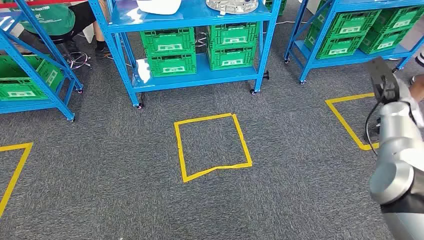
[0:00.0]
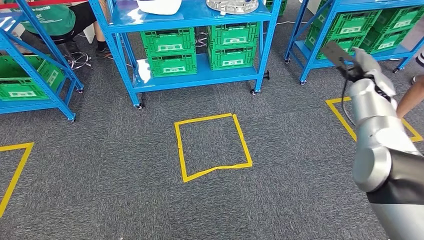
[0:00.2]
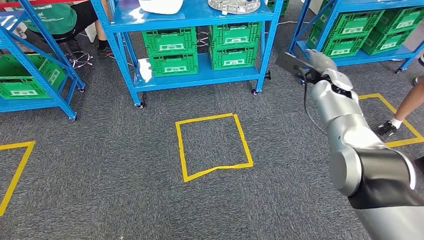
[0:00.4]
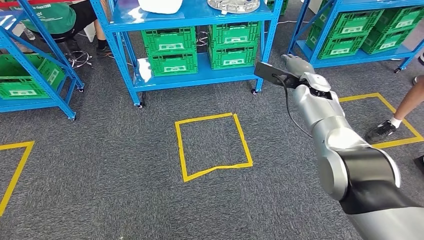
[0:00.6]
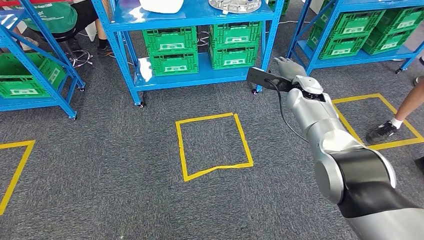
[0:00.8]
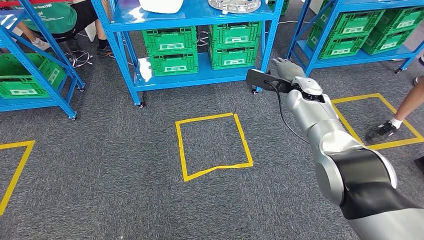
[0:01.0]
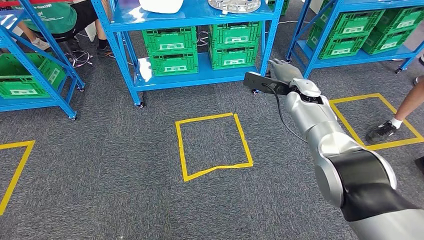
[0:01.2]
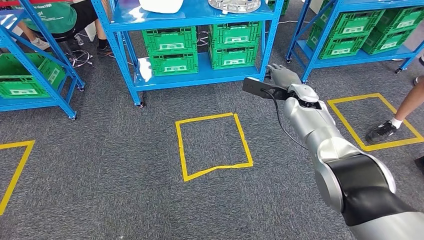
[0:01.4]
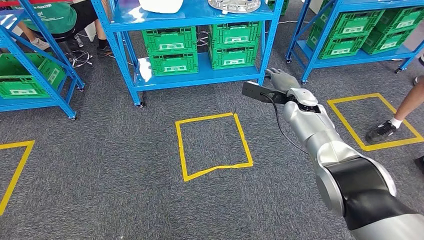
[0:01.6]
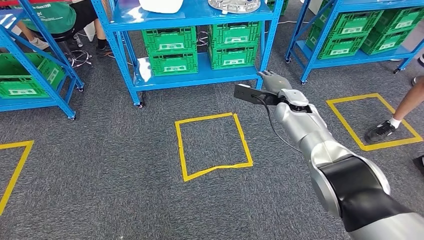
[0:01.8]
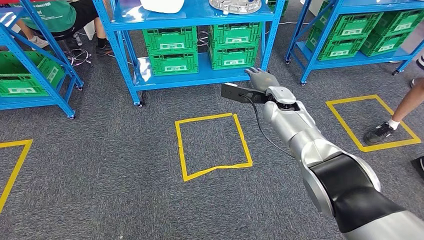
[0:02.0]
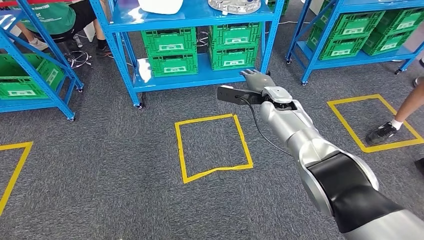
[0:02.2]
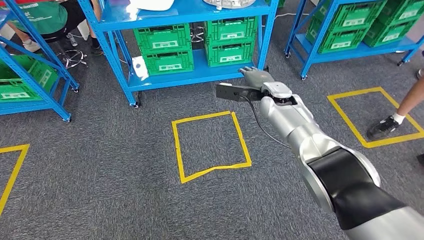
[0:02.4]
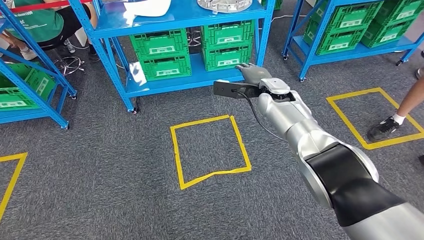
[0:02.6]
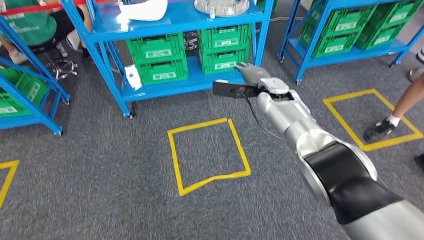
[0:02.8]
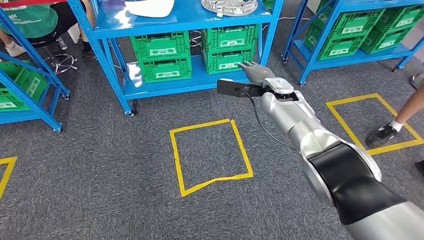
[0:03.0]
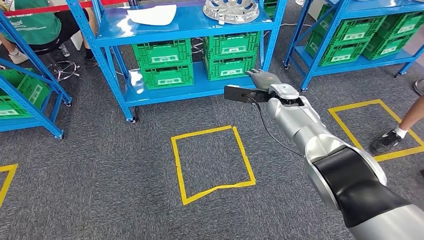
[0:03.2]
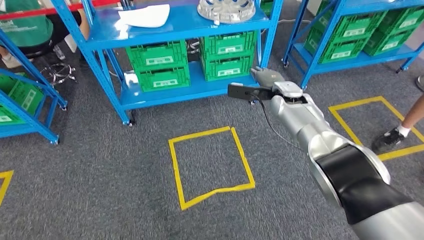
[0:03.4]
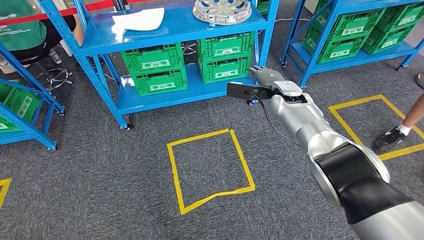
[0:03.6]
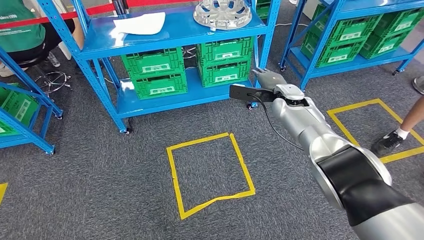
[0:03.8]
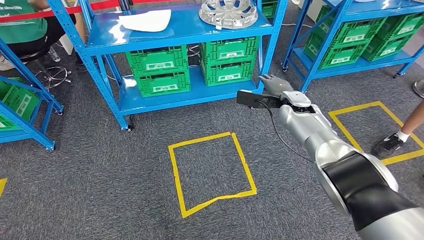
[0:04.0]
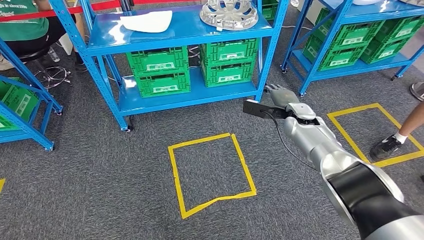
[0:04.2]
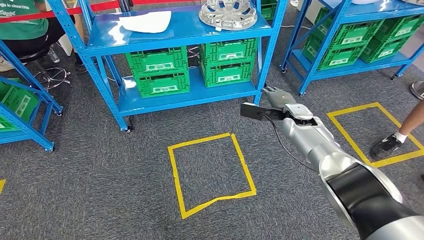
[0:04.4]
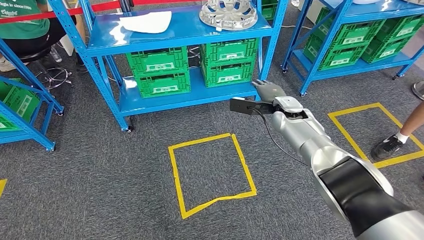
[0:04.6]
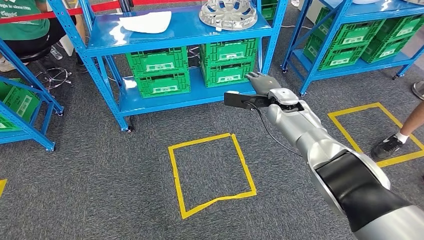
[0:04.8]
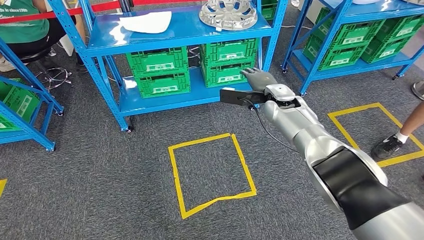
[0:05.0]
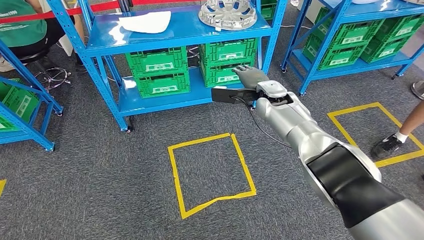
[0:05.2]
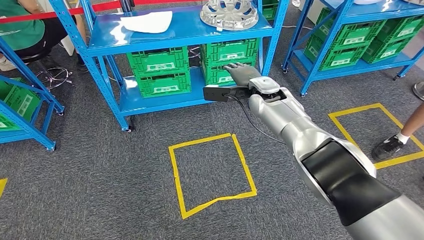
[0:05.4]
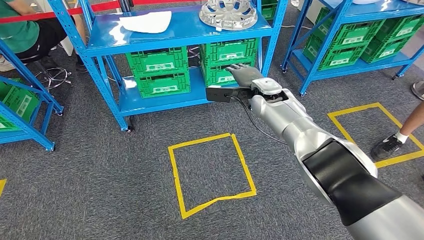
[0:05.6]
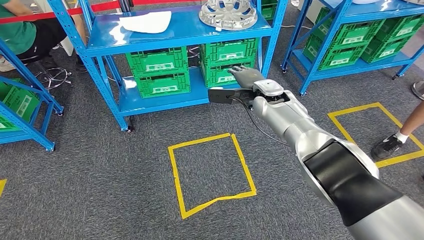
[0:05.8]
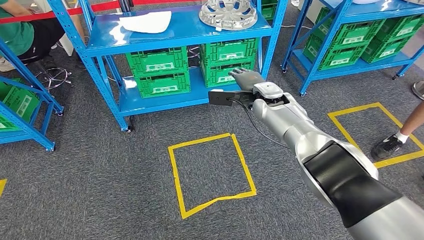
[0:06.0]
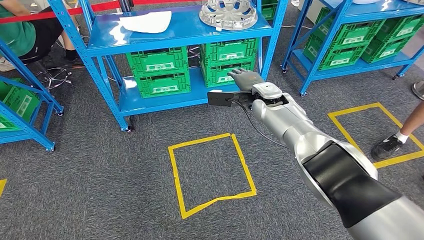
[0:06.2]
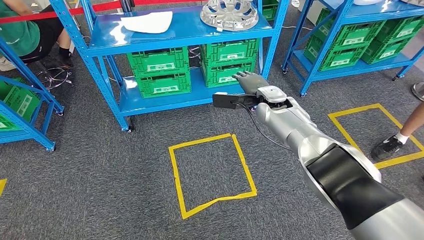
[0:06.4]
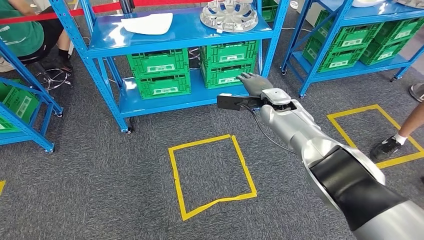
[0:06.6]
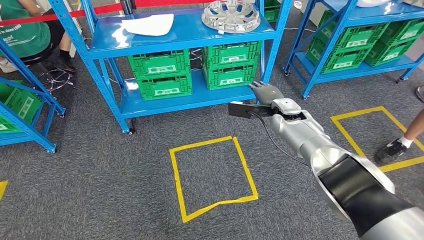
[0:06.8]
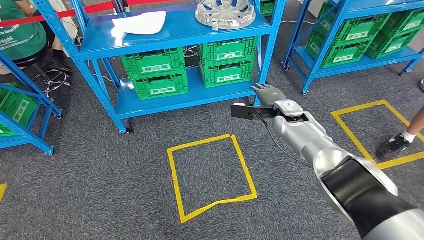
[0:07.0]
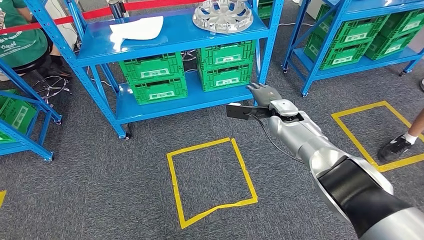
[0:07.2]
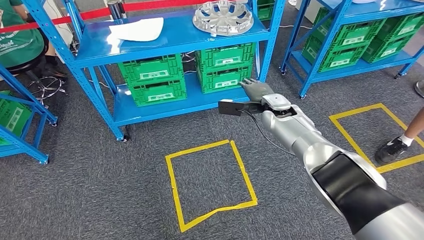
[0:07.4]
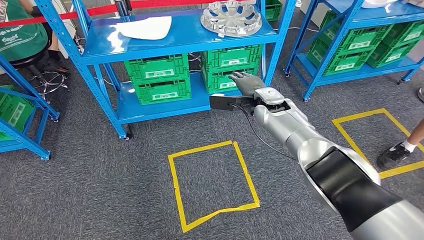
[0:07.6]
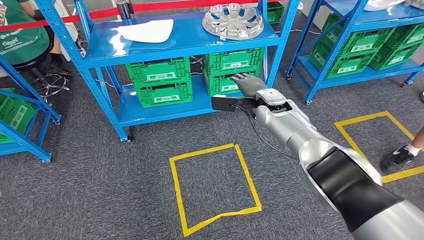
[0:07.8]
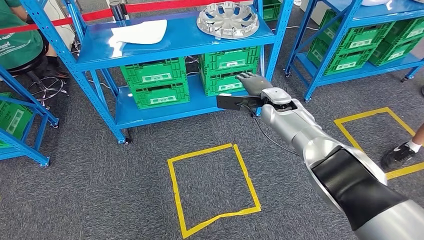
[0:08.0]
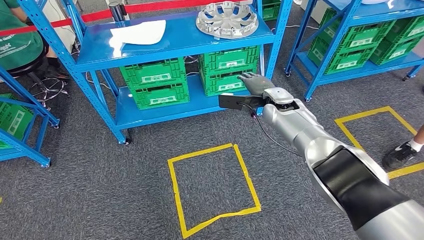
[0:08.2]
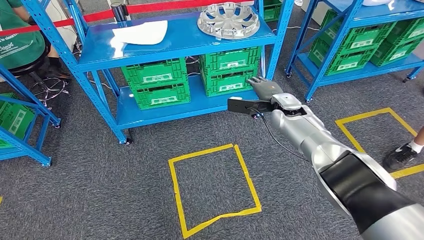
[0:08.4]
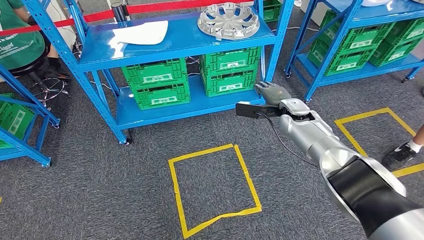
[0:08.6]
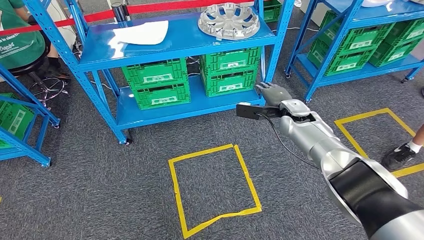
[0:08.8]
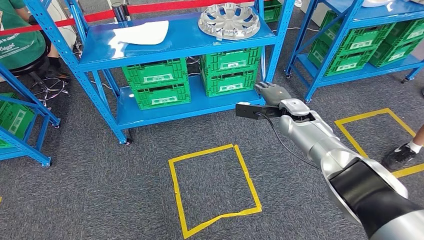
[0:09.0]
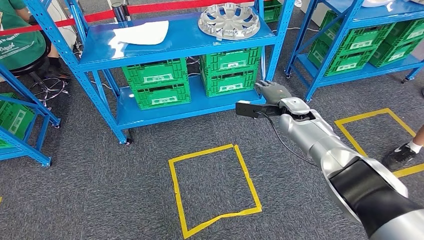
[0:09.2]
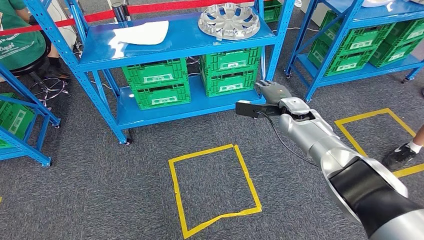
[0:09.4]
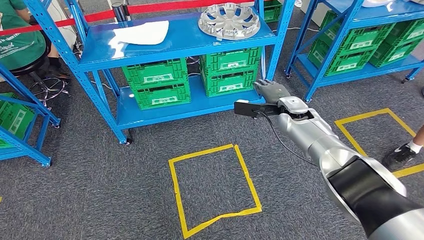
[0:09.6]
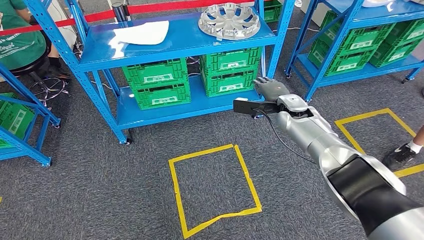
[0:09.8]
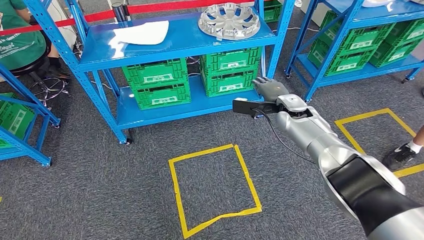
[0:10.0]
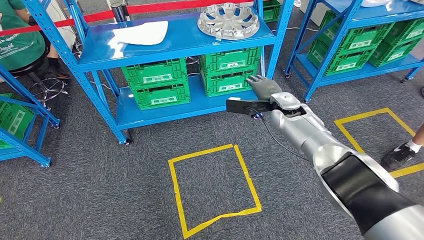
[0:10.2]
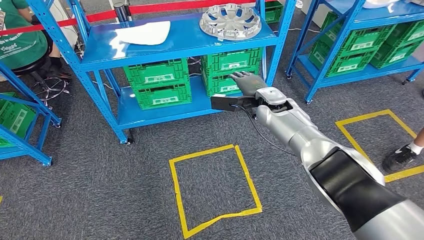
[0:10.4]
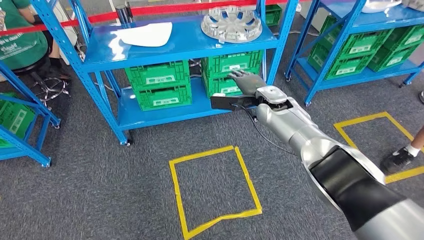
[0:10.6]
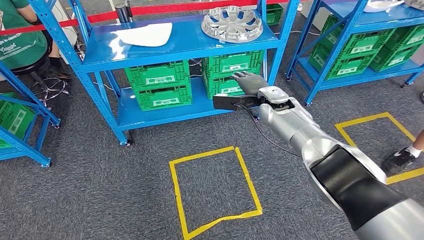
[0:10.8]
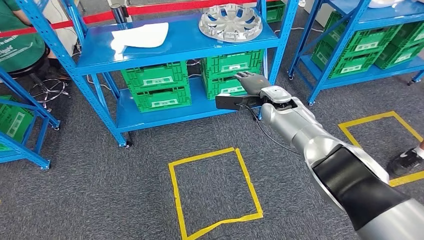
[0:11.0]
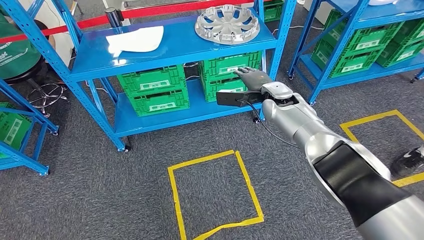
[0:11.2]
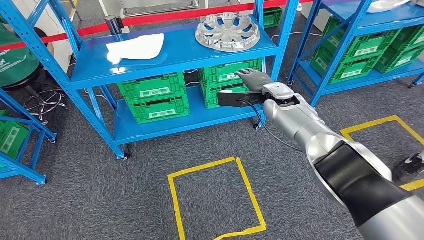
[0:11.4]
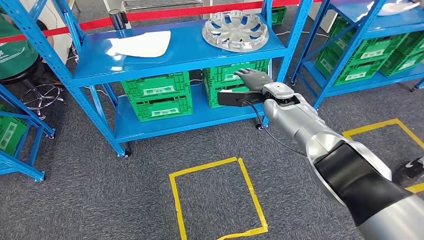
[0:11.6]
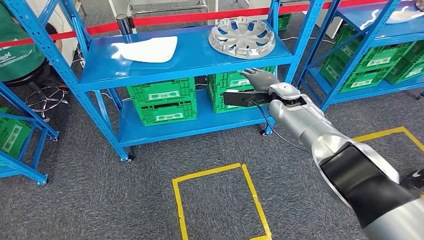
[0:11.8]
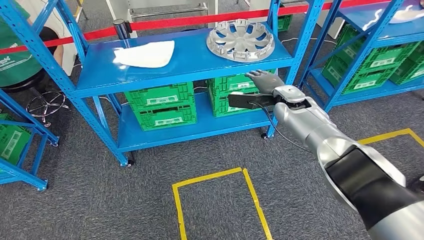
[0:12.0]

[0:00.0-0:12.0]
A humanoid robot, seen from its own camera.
0:04.4 to 0:06.0: The right hand shifts some 10 cm to the left, upward and forward.
0:09.0 to 0:10.4: The right hand moves to the left, some 5 cm.

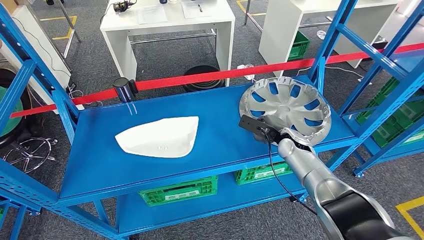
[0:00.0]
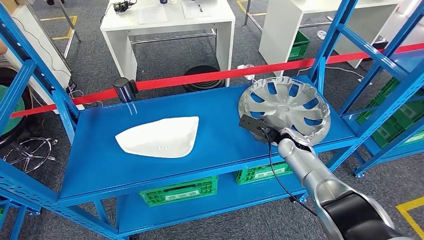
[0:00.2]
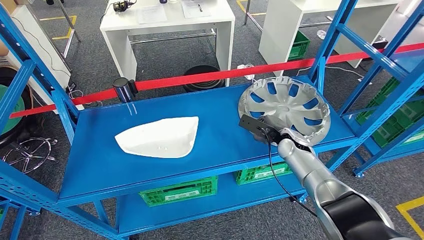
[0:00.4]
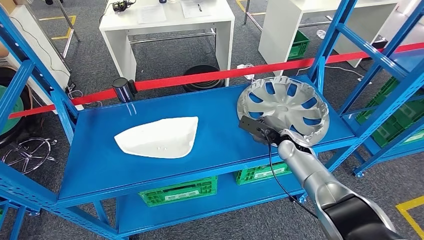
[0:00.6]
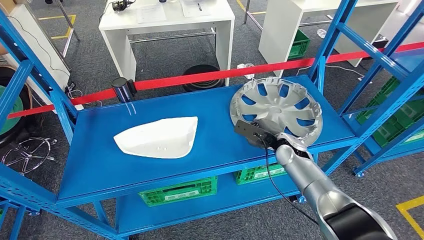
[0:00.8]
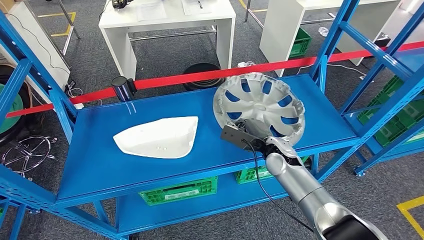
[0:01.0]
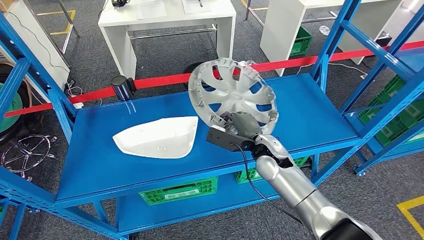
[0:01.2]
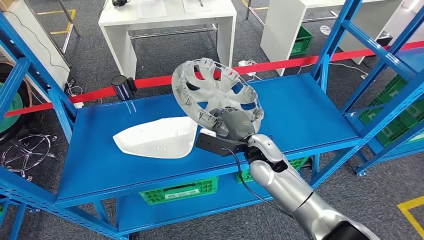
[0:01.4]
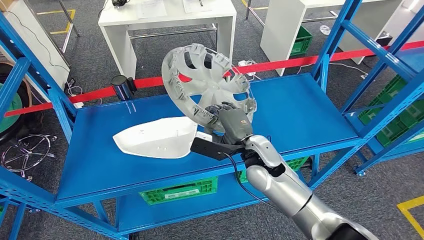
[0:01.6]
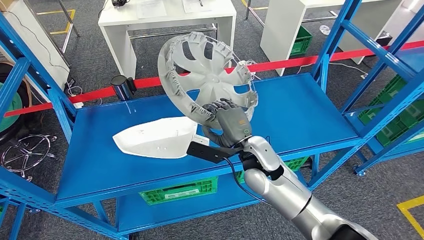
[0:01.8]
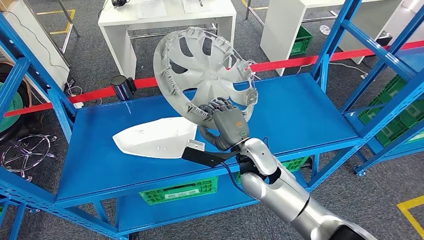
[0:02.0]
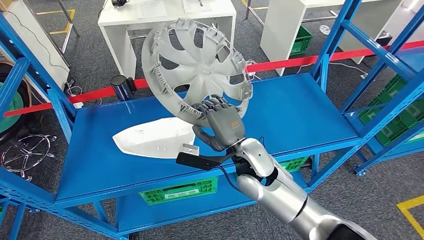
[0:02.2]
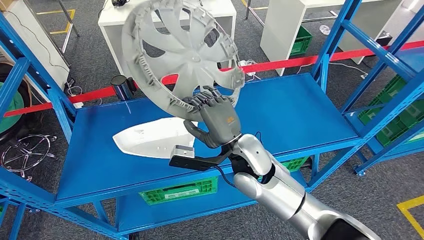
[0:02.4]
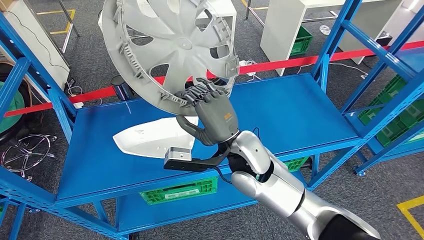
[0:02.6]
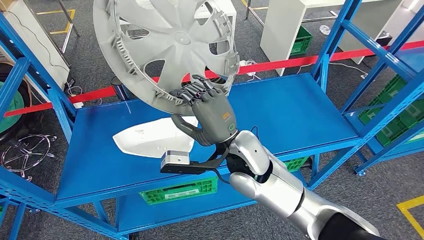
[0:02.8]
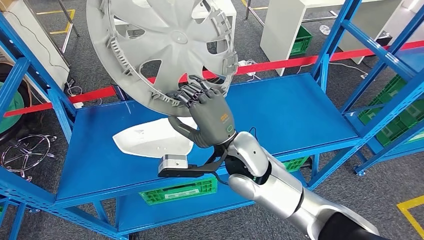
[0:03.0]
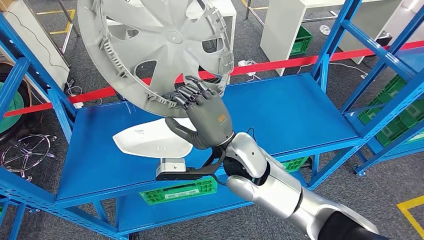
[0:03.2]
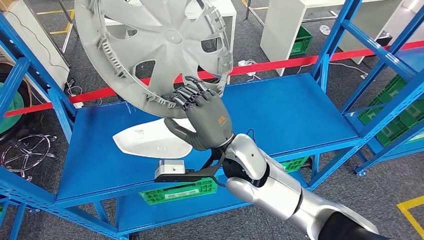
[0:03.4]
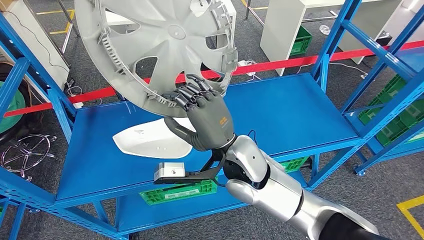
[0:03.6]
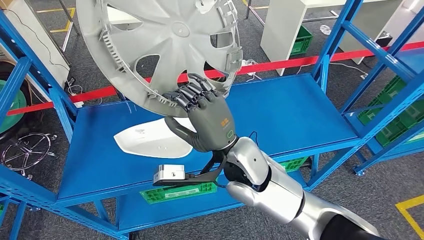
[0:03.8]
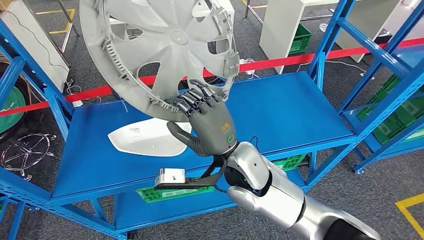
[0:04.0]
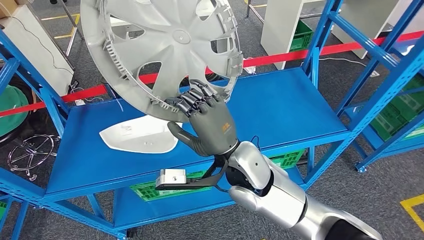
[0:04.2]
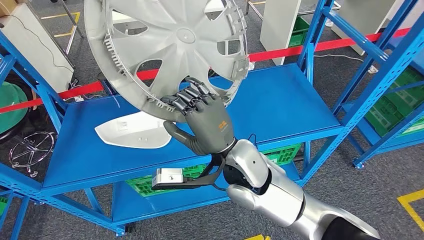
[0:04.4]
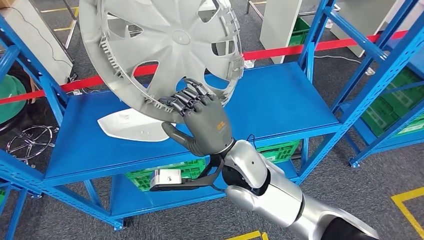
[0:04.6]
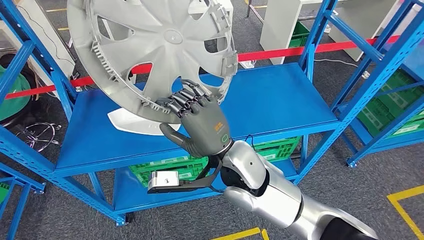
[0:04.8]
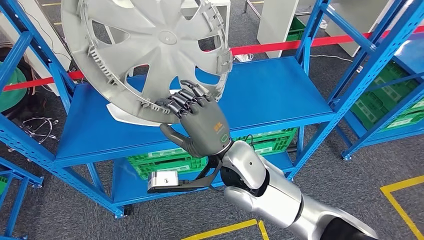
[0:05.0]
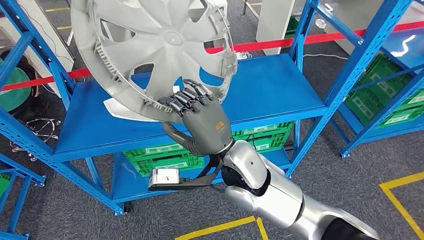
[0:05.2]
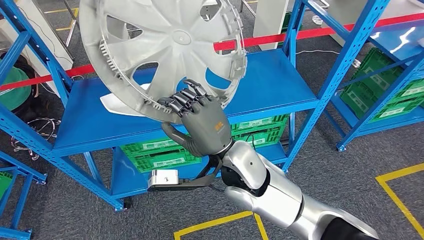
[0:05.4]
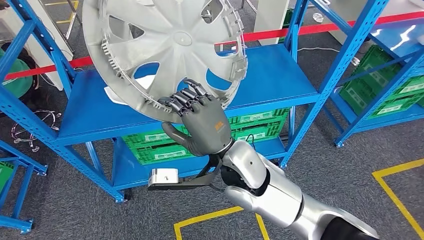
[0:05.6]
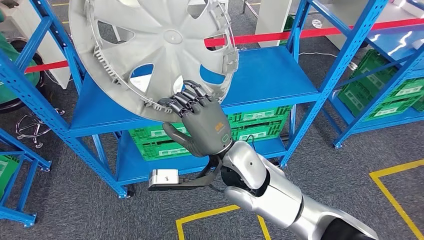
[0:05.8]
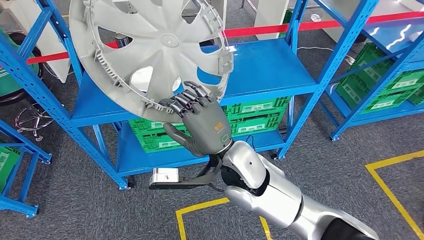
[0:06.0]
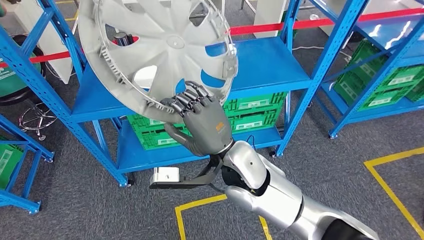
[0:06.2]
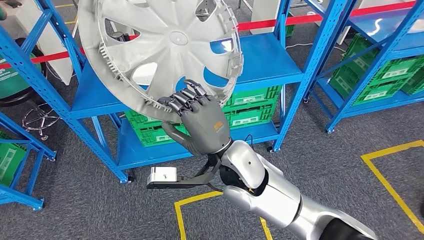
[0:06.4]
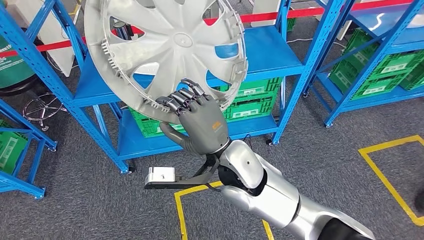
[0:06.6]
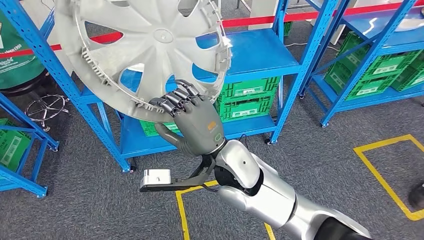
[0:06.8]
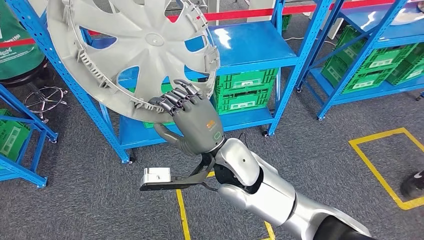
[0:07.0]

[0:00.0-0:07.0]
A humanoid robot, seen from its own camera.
Step, 0:00.0 to 0:02.8: Take small components from the rack.
0:01.4 to 0:02.8: The right hand is displaced upward and to the left by about 10 cm.
